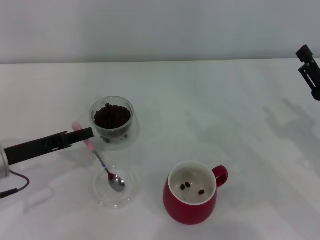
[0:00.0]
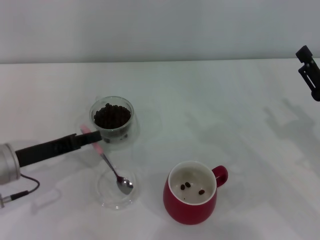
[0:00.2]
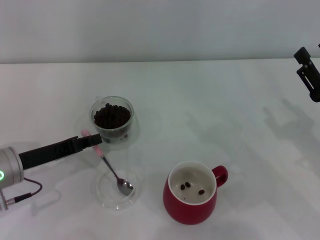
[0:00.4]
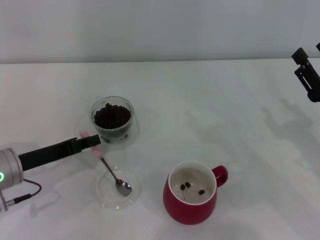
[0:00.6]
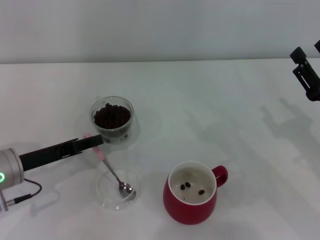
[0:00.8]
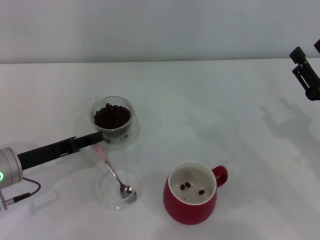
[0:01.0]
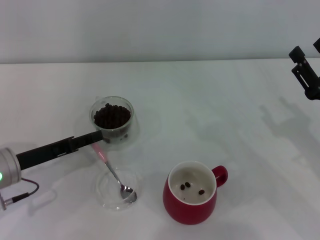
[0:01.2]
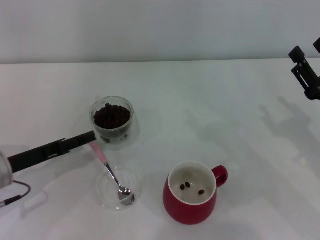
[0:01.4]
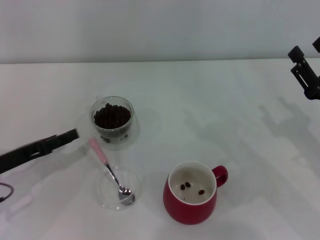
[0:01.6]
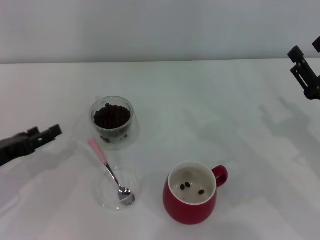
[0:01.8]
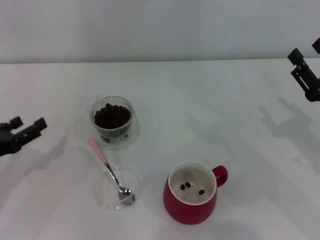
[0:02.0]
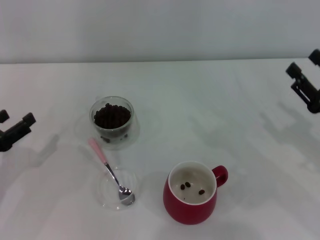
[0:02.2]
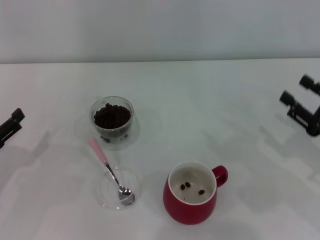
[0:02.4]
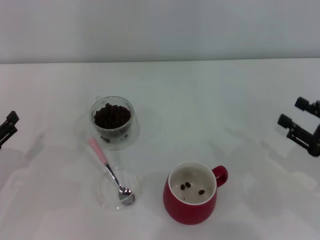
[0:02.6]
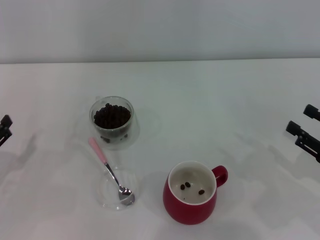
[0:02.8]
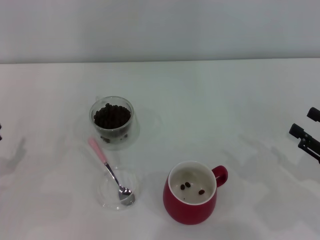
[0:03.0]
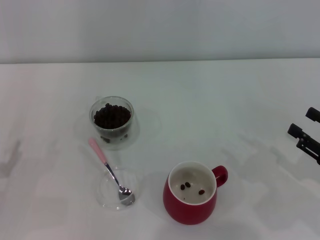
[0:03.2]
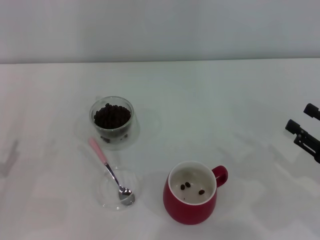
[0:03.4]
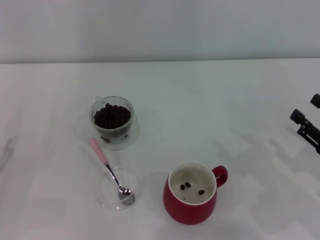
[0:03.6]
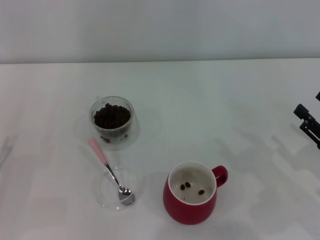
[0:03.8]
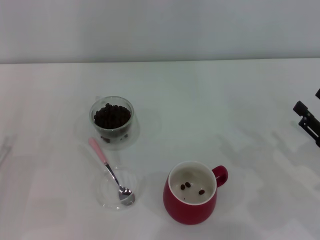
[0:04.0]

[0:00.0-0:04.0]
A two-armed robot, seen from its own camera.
Task of the whole recording: Use a pink spoon to take out the coffee beans from the glass and pour them into the red cup.
0:00.0 to 0:01.4: The left gripper opens its fingers.
0:01.4 to 0:02.6: The left gripper is displaced to the left by approximately 5 cm. The right gripper shifts by approximately 5 cm.
0:02.6 to 0:04.0: There are only small adjustments of the grippers.
